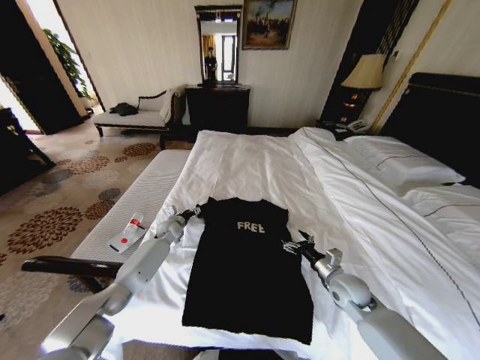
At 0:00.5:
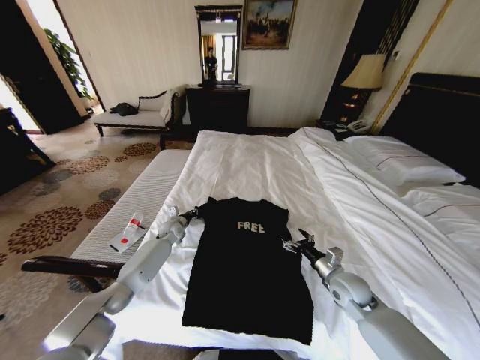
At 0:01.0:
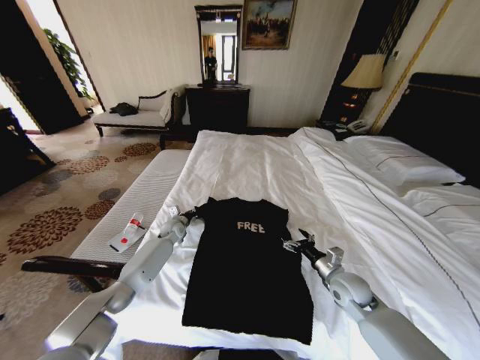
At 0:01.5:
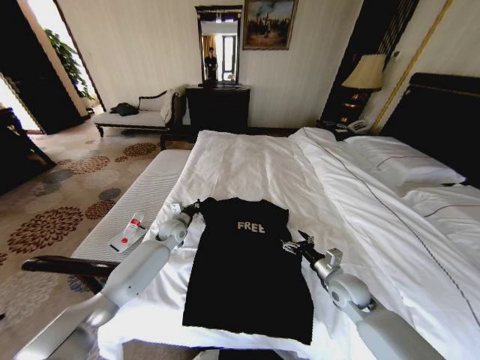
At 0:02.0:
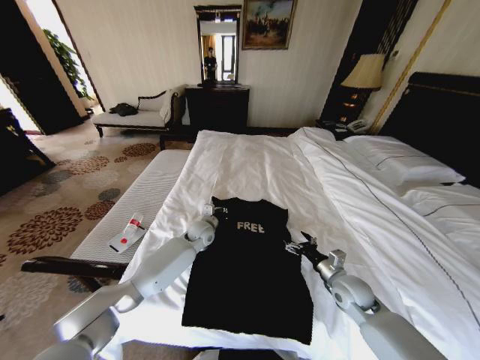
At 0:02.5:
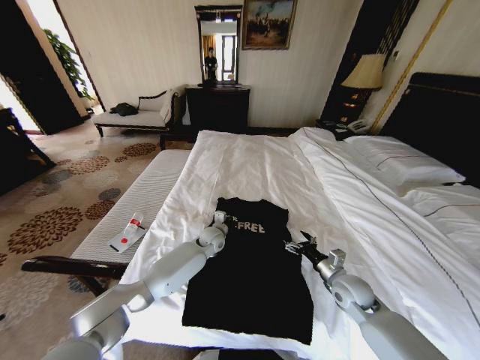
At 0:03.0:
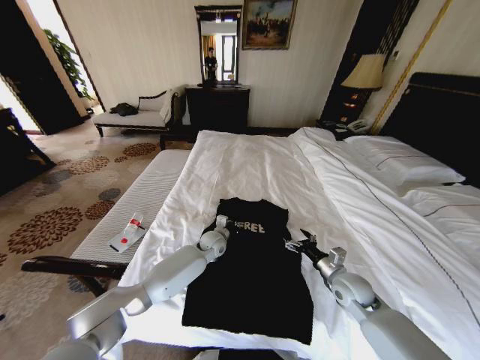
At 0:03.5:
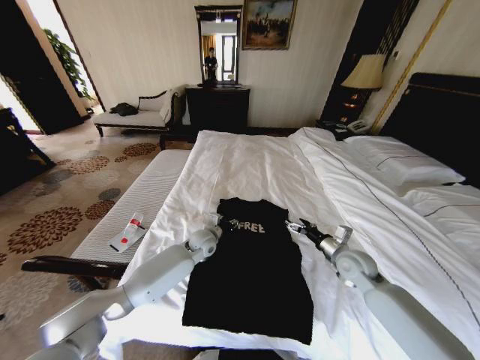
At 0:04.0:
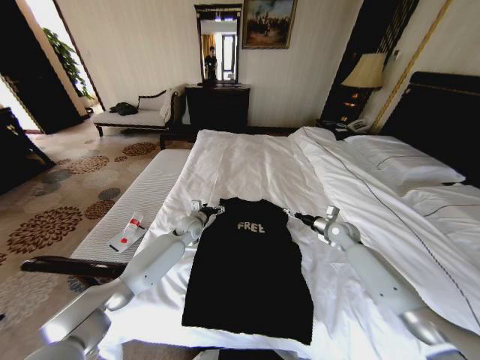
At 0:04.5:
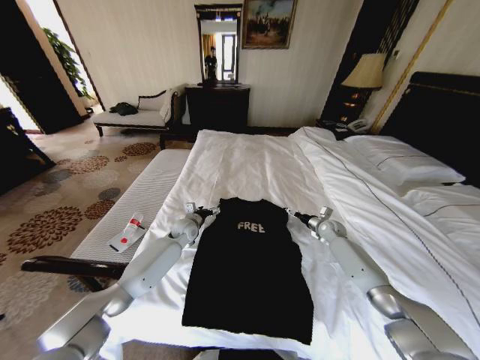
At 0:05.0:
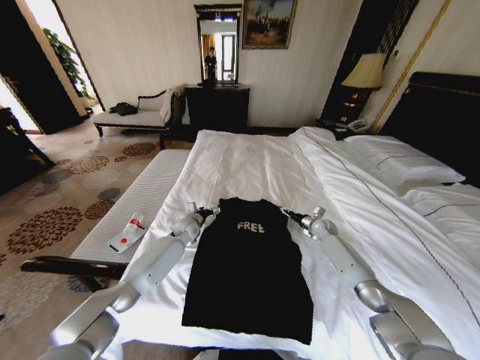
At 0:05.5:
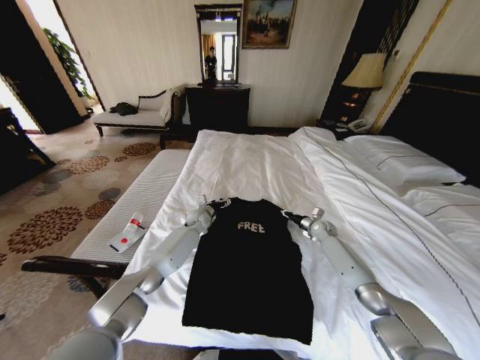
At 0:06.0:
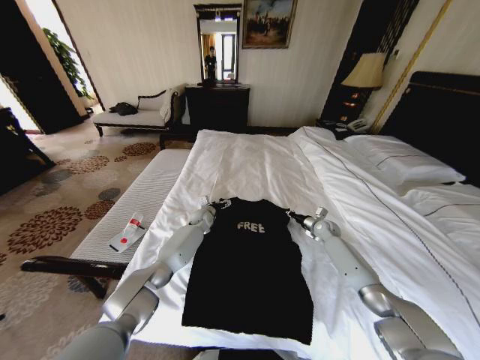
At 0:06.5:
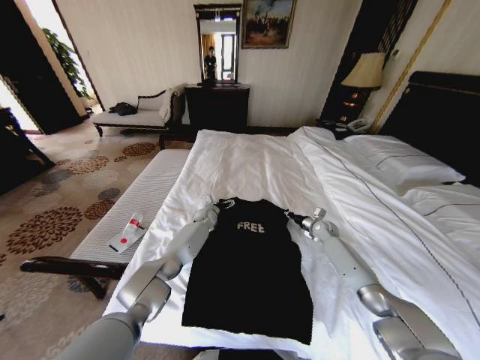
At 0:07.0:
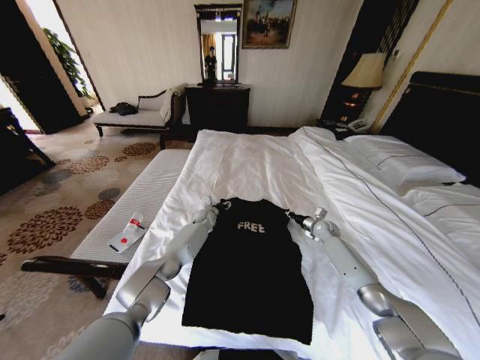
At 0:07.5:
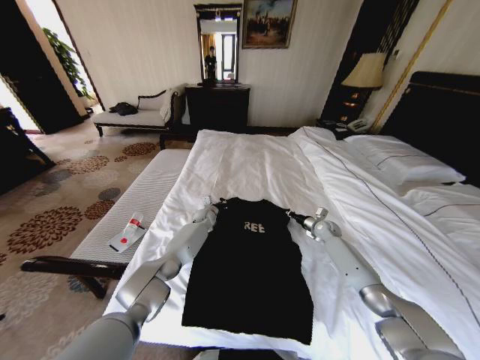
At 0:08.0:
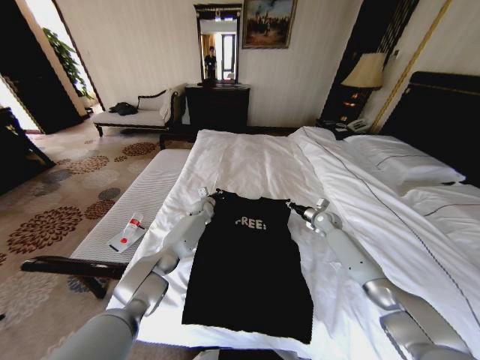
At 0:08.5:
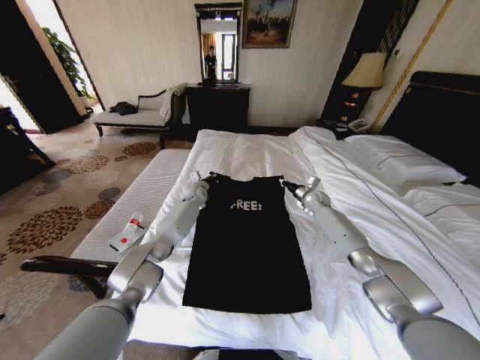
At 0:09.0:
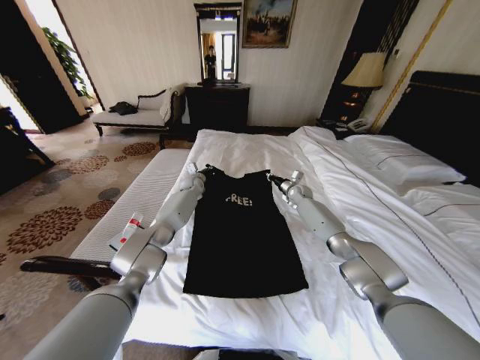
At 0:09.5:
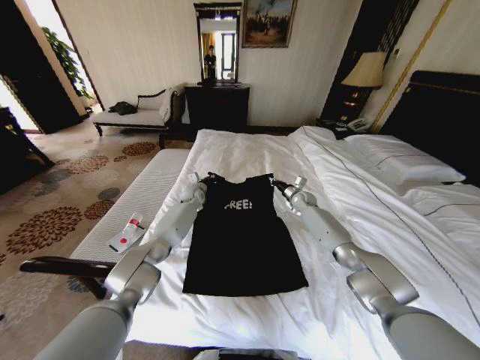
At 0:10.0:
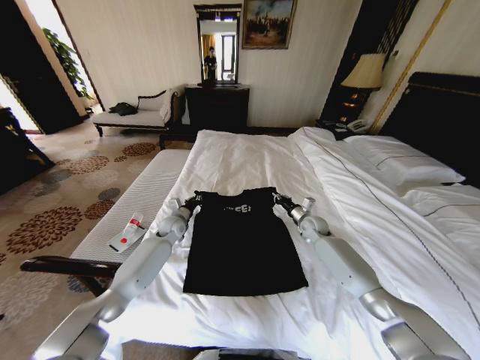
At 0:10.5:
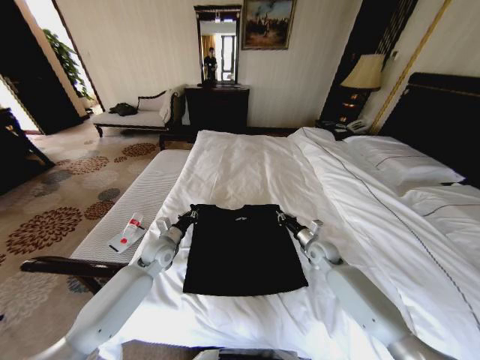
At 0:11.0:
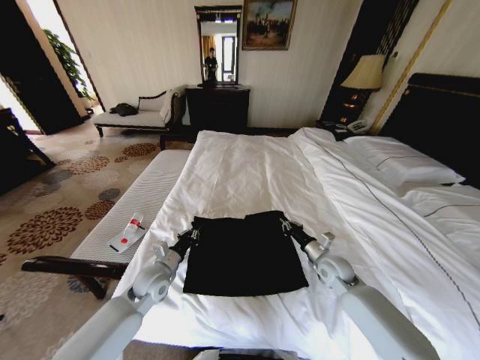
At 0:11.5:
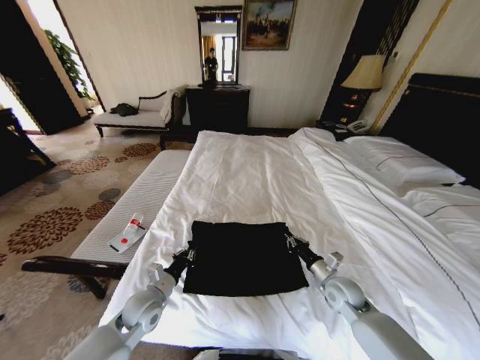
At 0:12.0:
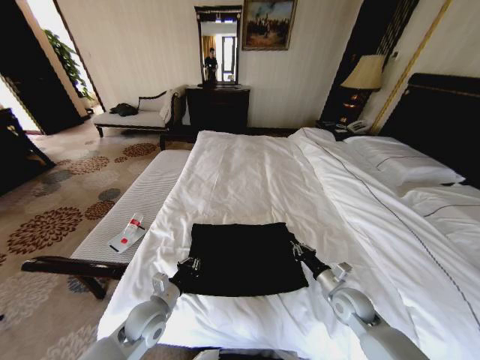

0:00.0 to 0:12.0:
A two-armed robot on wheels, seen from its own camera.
Task of the whole recording: Fold the clothes on the bed.
0:00.0 to 0:02.0: The left gripper is displaced to the right by roughly 15 cm, and closes its fingers.
0:02.0 to 0:04.0: The left gripper opens its fingers, while the right gripper moves forward and to the right, about 20 cm.
0:04.0 to 0:06.0: The left gripper shifts some 10 cm forward, while the right gripper heads forward and downward, covering some 10 cm, and closes.
0:06.0 to 0:08.0: The left gripper closes its fingers.
0:08.0 to 0:10.0: The left gripper shifts about 15 cm backward and to the left. The right gripper moves to the left, some 5 cm, and travels forward and back again, roughly 10 cm each way.
0:10.0 to 0:12.0: The two grippers go approximately 25 cm backward.

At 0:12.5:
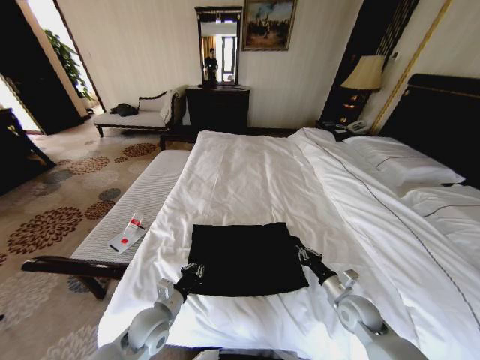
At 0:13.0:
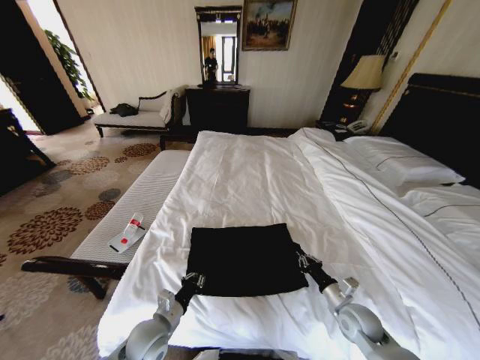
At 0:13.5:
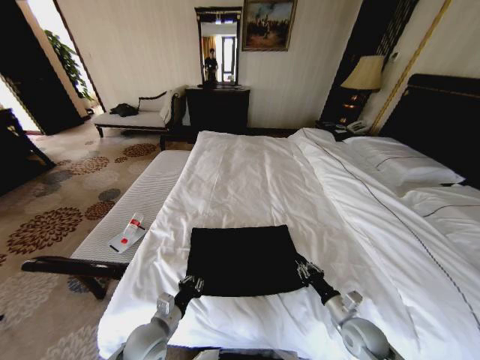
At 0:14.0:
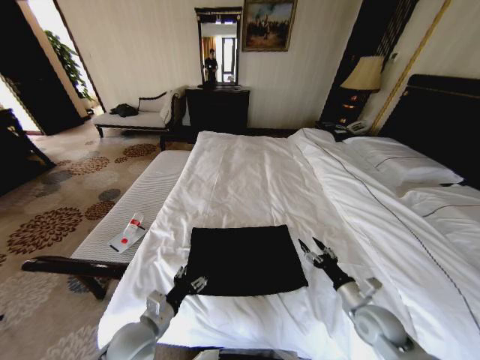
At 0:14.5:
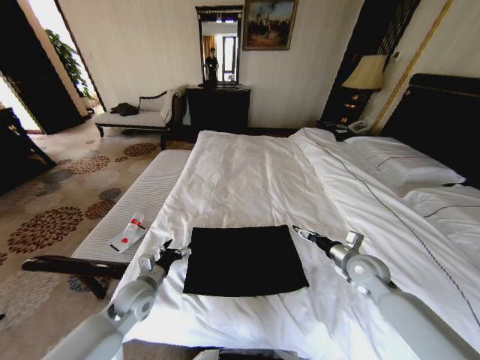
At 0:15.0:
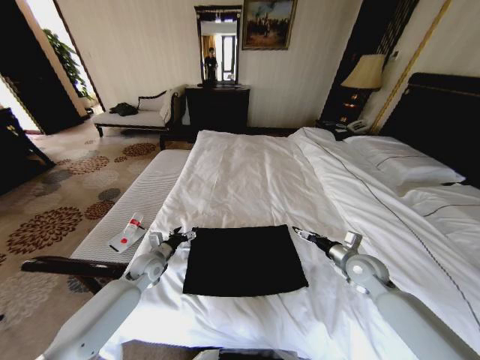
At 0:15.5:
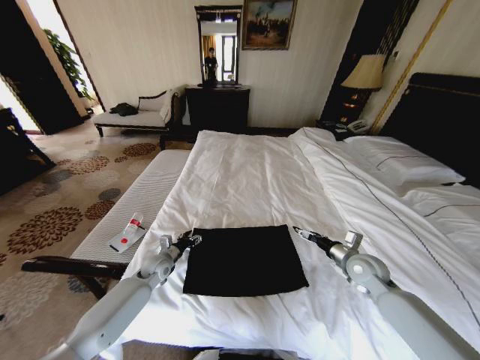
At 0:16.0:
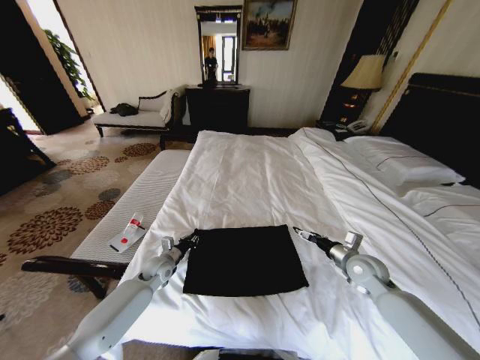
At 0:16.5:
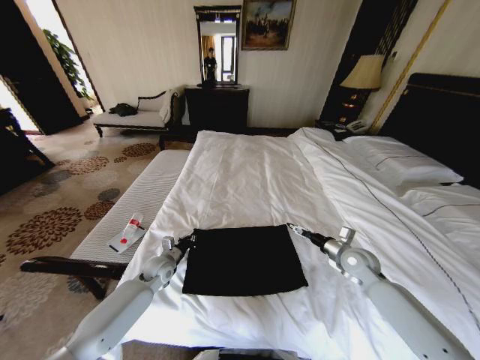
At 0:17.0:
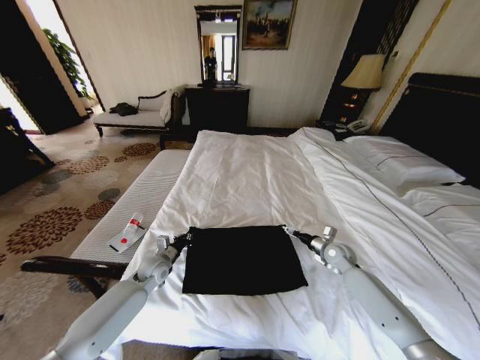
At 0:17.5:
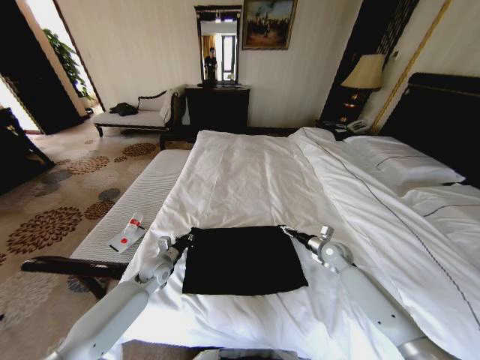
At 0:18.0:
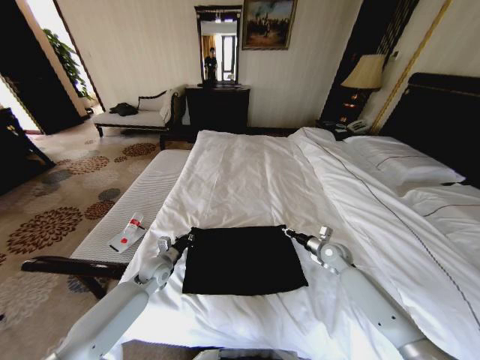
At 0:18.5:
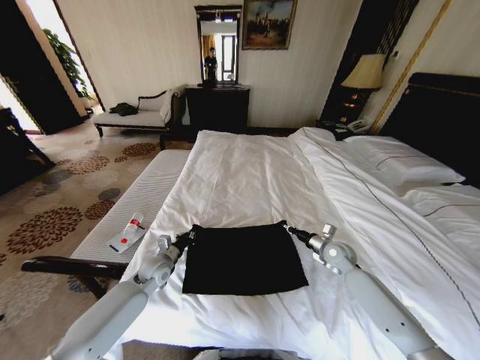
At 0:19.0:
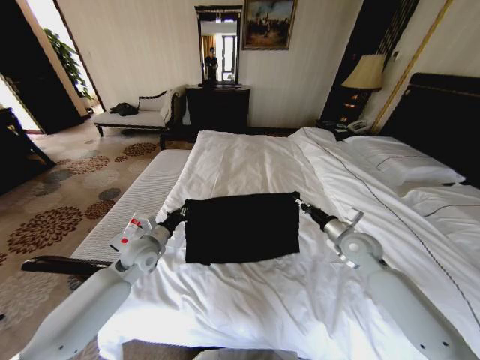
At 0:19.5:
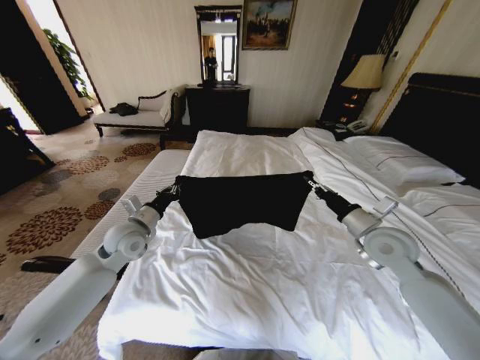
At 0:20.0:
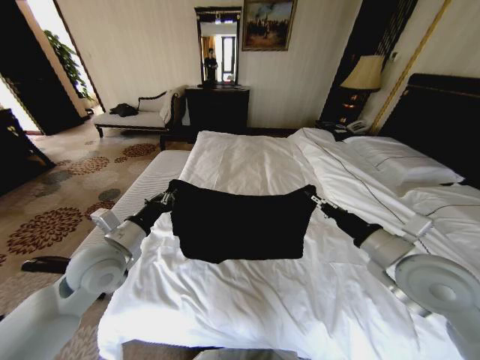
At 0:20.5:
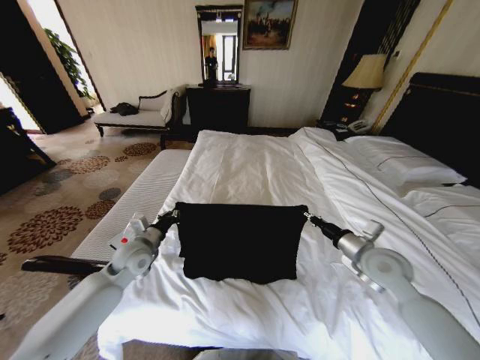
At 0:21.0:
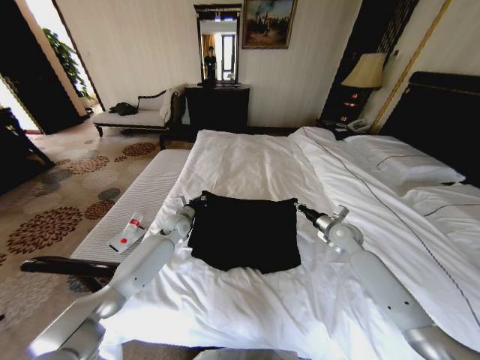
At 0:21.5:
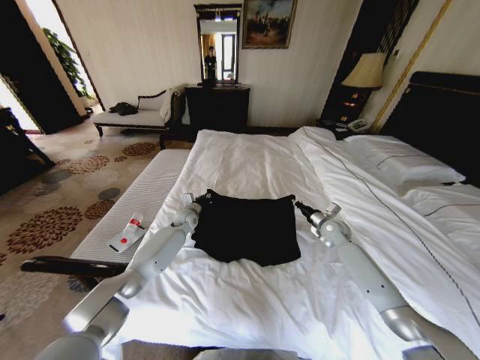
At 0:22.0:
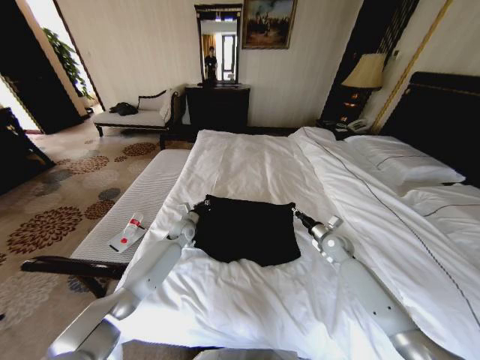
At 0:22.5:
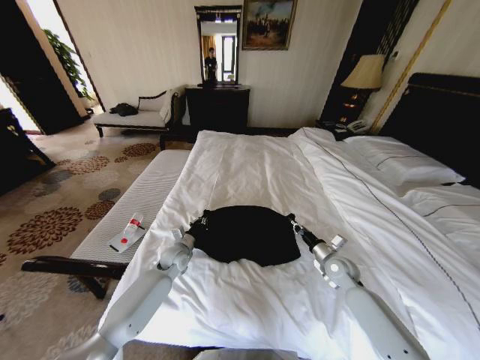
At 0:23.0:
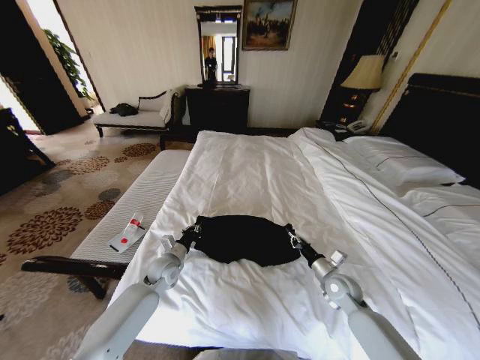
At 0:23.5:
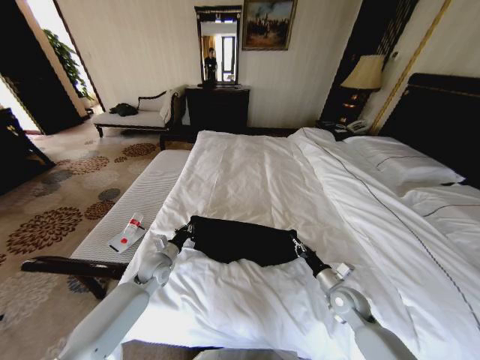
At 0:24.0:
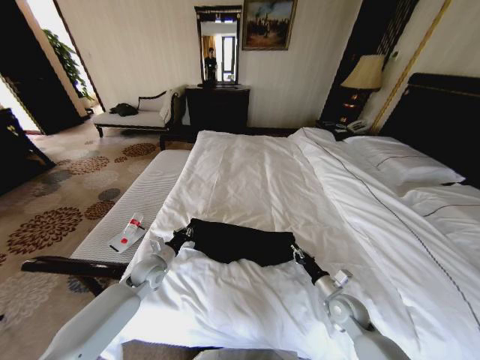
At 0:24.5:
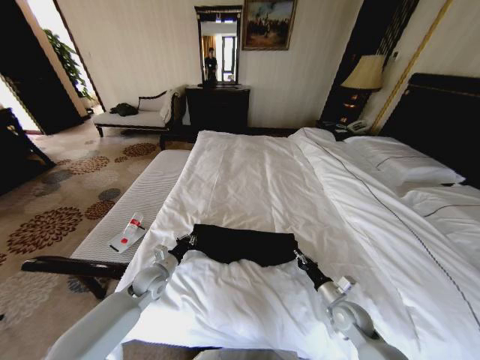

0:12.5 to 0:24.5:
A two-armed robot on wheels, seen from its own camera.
Task of the whole recording: Fold the clothes on the bed.
0:12.5 to 0:14.5: The right gripper goes some 10 cm upward and forward, and opens its fingers, while the left gripper is displaced forward and to the left by roughly 10 cm, and opens.
0:14.5 to 0:16.5: The left gripper shifts approximately 10 cm forward and downward, and closes up.
0:16.5 to 0:18.5: The right gripper shifts by about 5 cm, and closes.
0:18.5 to 0:20.5: The right gripper shifts approximately 20 cm upward and backward; the left gripper moves upward, about 10 cm.
0:20.5 to 0:22.5: The right gripper heads downward, covering about 15 cm, and moves some 20 cm forward and comes back; the left gripper moves downward and to the right, roughly 15 cm, and travels forward and back again, about 20 cm each way.
0:22.5 to 0:24.5: The left gripper moves backward and to the left, approximately 10 cm; the right gripper heads backward and downward, covering about 15 cm.

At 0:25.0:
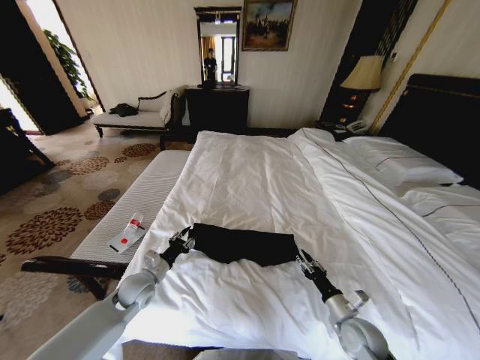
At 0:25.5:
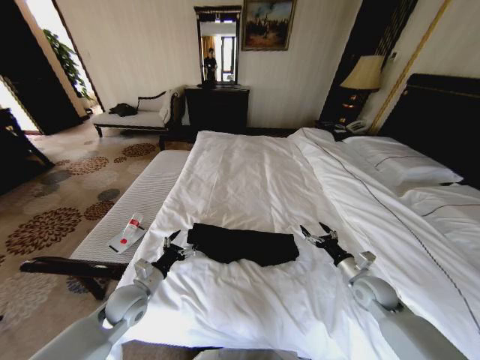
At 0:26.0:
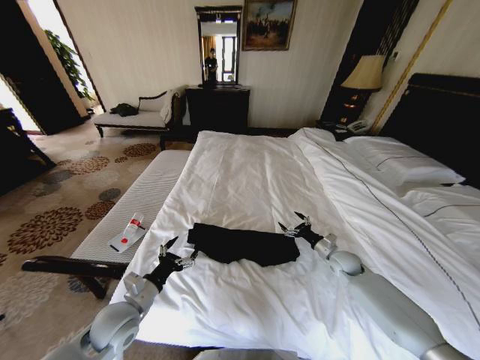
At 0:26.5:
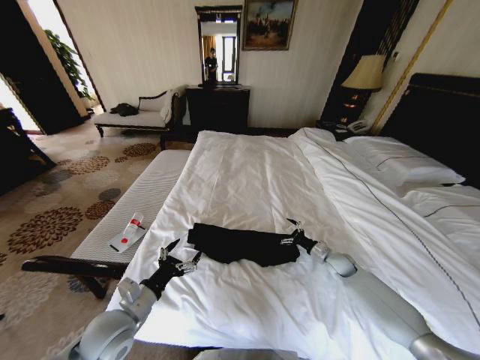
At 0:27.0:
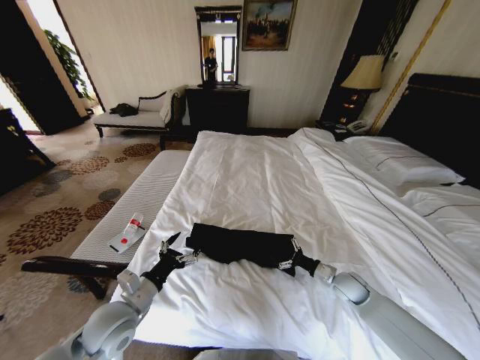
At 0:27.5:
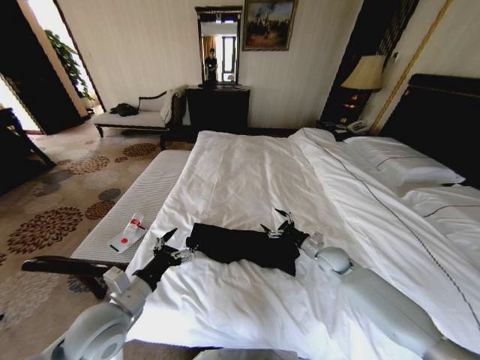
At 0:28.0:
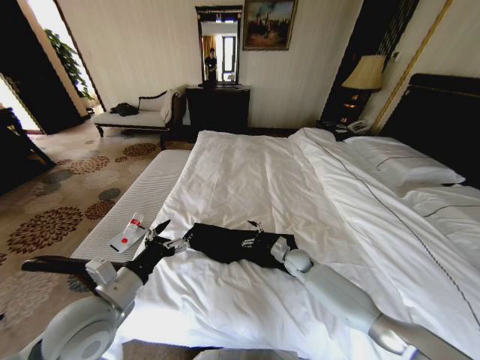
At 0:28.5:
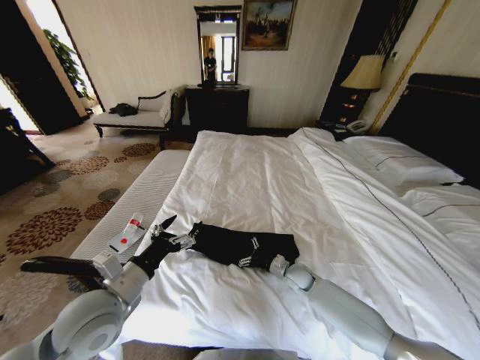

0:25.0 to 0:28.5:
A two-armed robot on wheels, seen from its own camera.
Task of the whole recording: Fold the clothes on the bed.
0:25.0 to 0:27.0: The left gripper travels backward and upward by some 10 cm, and opens its fingers. Meanwhile the right gripper travels forward by roughly 15 cm, and opens its fingers.
0:27.0 to 0:28.5: The right gripper travels to the left by roughly 15 cm; the left gripper is displaced upward by some 10 cm.
